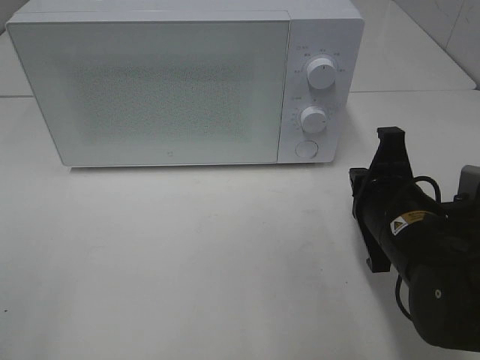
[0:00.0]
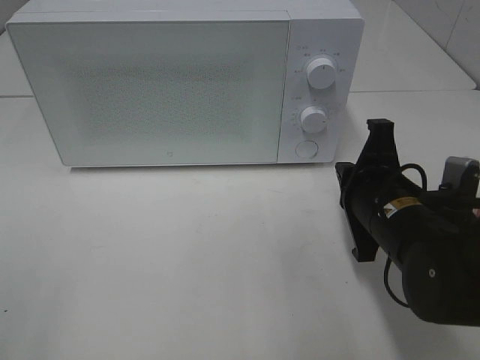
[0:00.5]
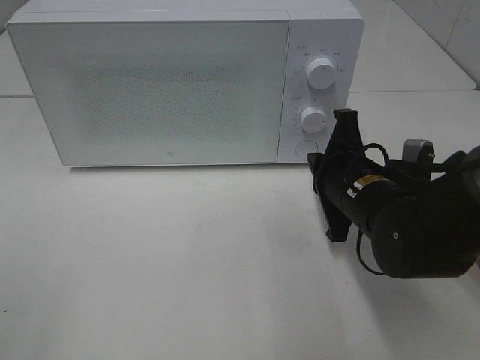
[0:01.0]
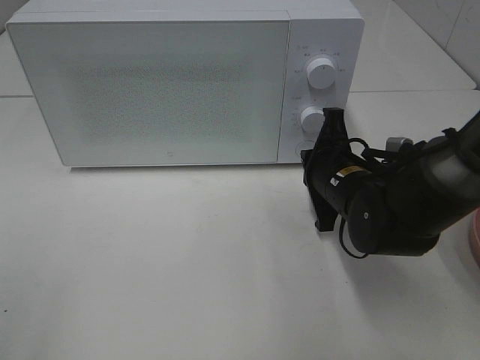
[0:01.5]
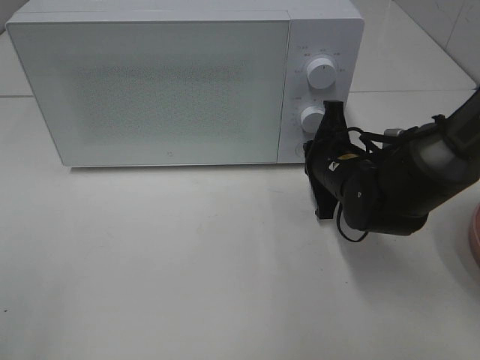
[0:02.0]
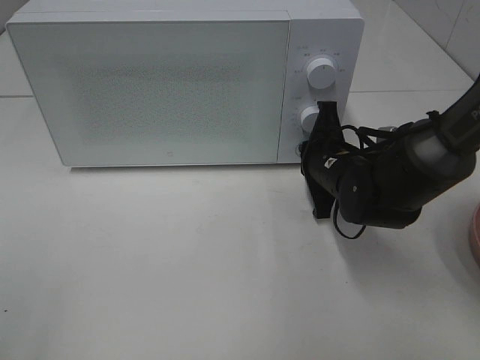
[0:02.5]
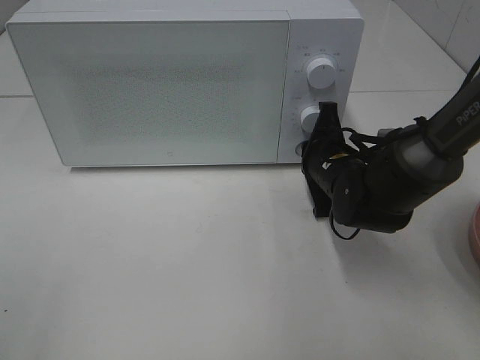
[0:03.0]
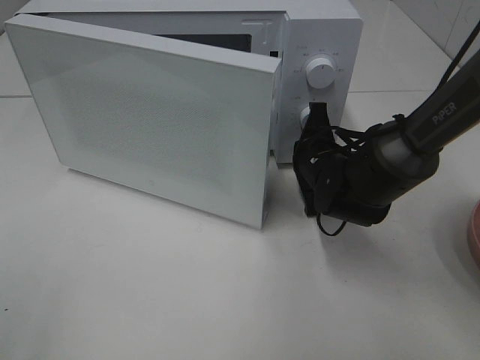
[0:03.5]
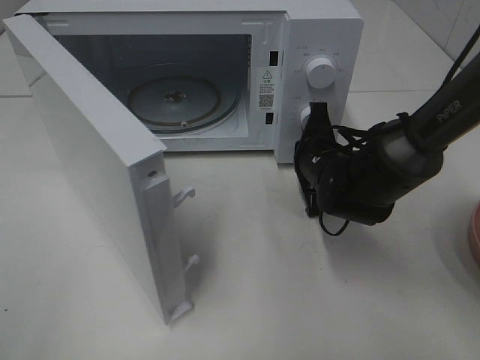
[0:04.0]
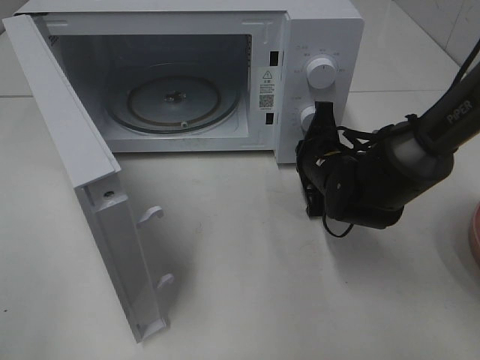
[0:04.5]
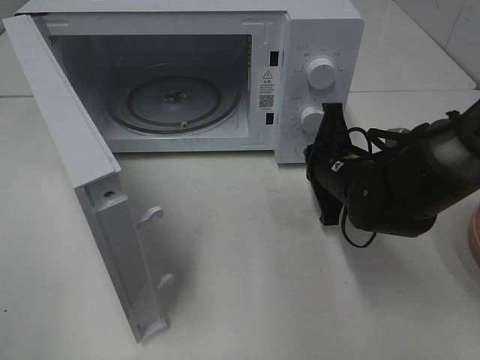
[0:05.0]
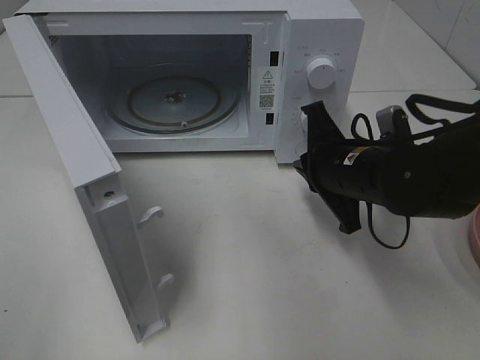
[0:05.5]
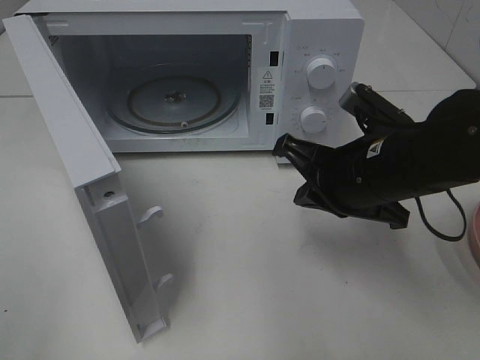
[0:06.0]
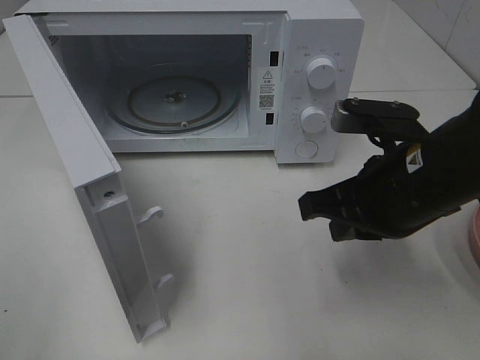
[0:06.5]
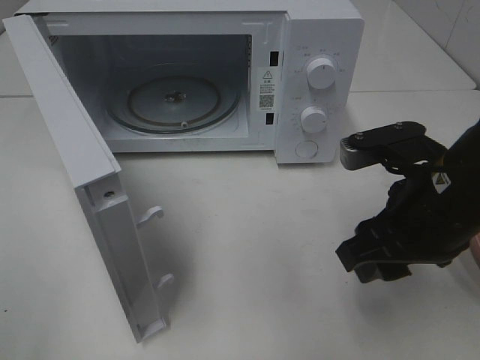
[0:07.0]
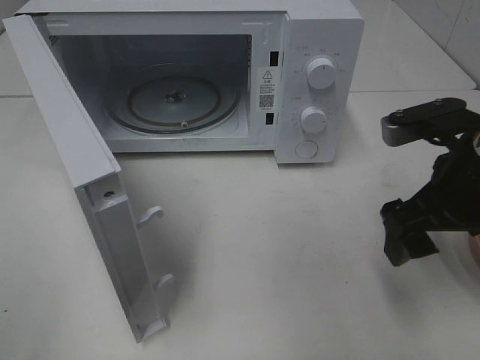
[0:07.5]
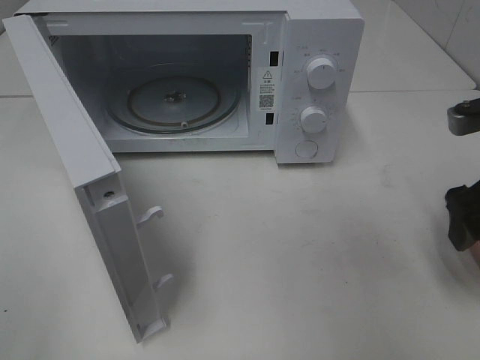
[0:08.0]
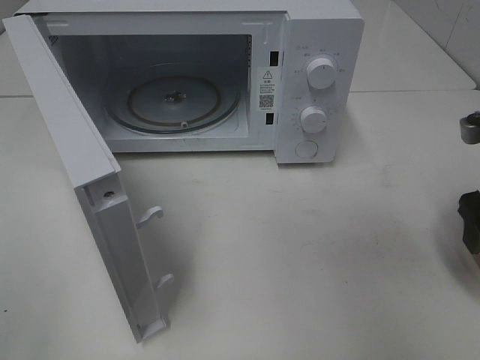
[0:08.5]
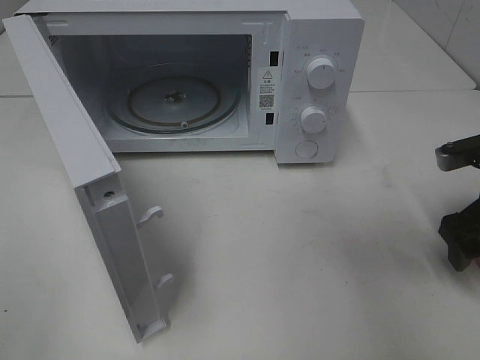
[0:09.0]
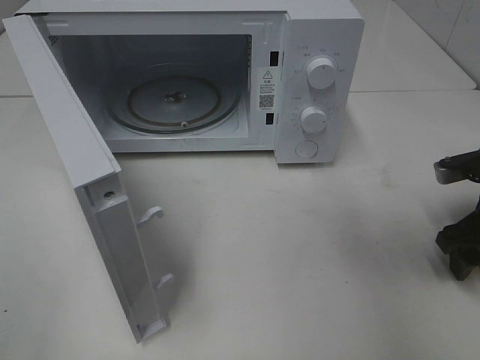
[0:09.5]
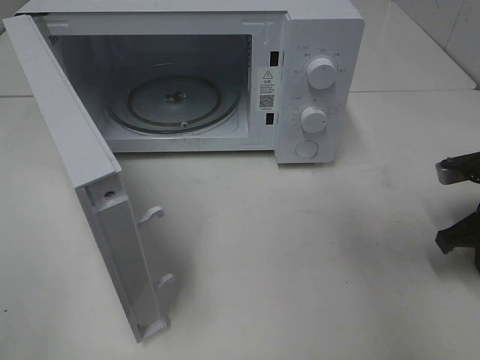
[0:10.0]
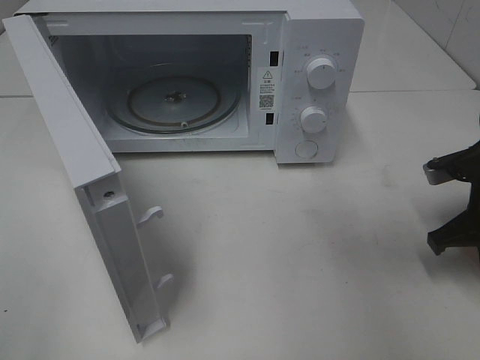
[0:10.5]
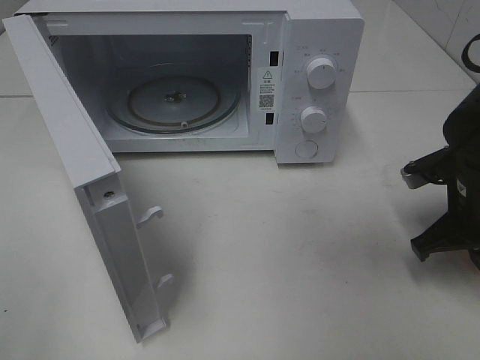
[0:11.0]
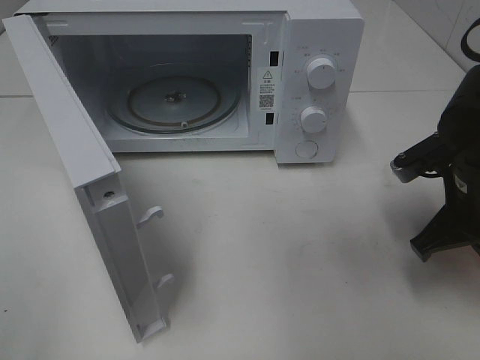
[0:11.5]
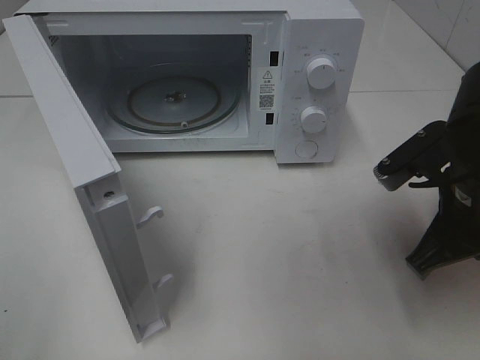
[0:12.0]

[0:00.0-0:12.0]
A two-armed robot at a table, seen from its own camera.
Task of the whole recording: Heat the burger.
Step, 0:00.0 to 0:05.0: Right hand: press the switch.
Step, 0:05.5 to 0:10.5: Right hand: grab the plate with the hamburger.
0:00.0 to 0:02.0: The right gripper heads forward, covering some 10 cm.
0:04.0 to 0:06.0: The right gripper moves backward and upward, some 15 cm.
0:06.0 to 0:08.0: The right gripper travels to the right by approximately 15 cm, and opens its fingers.
0:08.0 to 0:10.0: The right gripper heads downward, covering roughly 10 cm, and closes.
0:10.0 to 0:12.0: The right gripper is displaced to the left, upward and backward by roughly 15 cm.

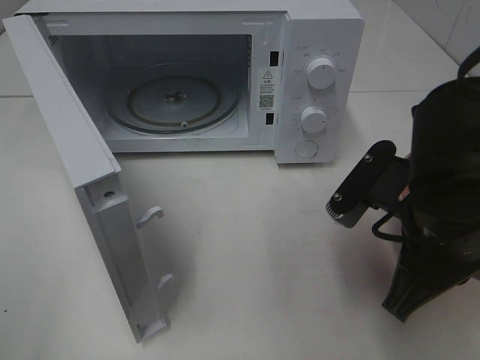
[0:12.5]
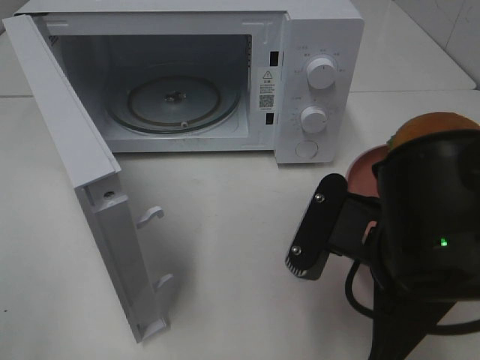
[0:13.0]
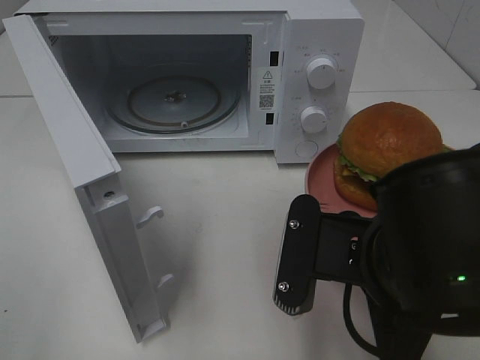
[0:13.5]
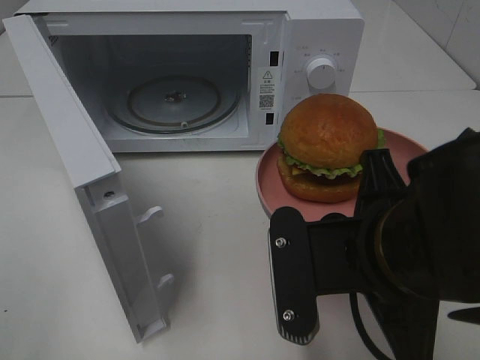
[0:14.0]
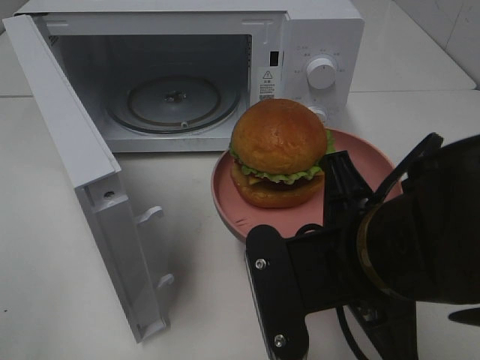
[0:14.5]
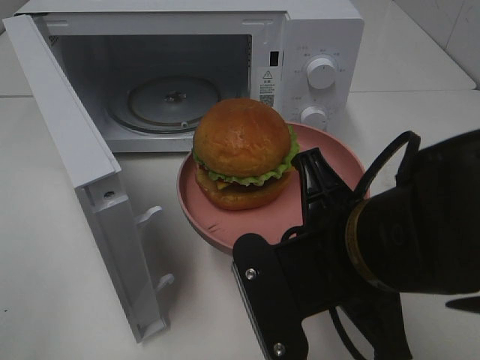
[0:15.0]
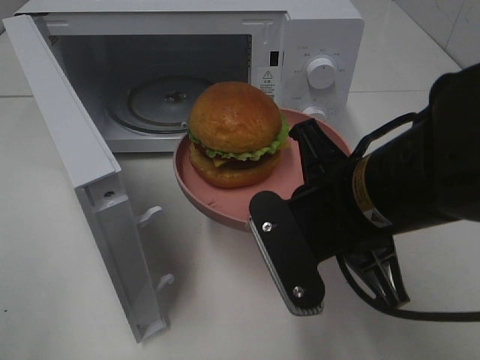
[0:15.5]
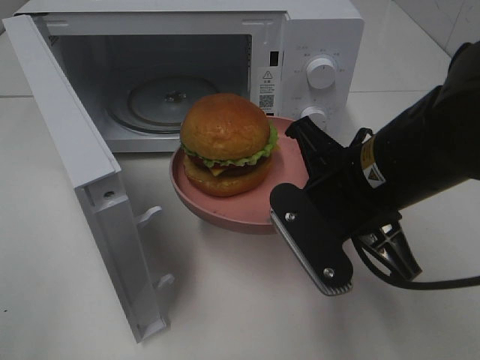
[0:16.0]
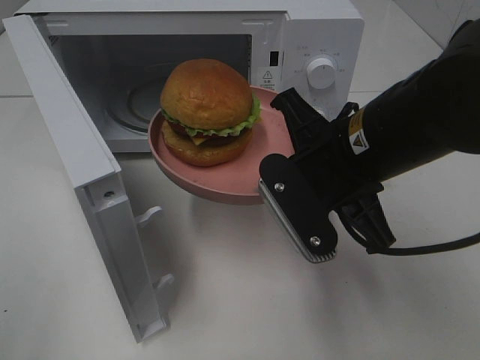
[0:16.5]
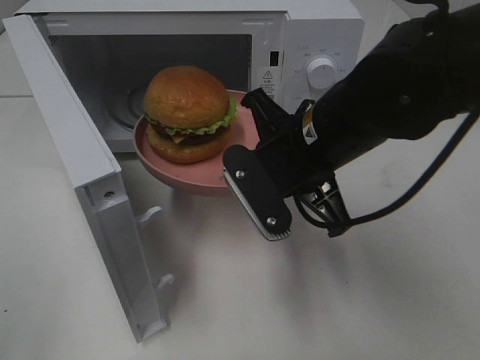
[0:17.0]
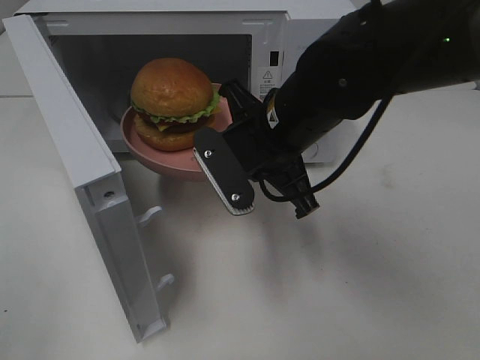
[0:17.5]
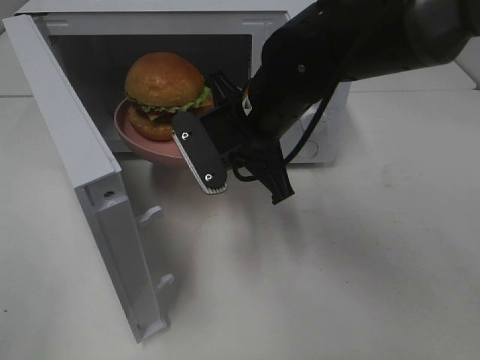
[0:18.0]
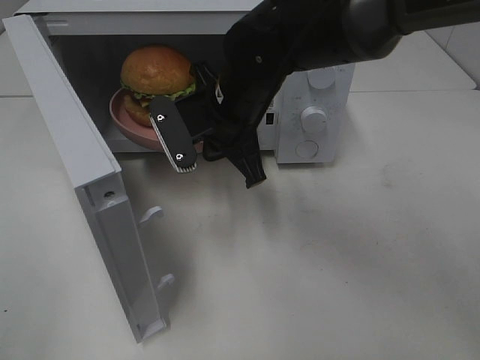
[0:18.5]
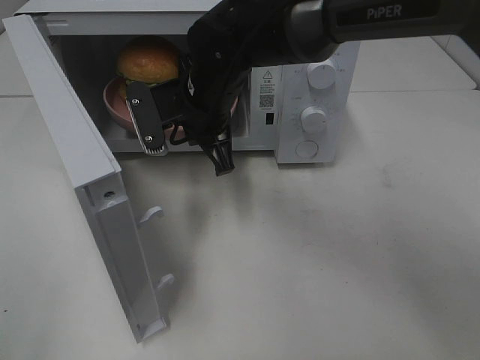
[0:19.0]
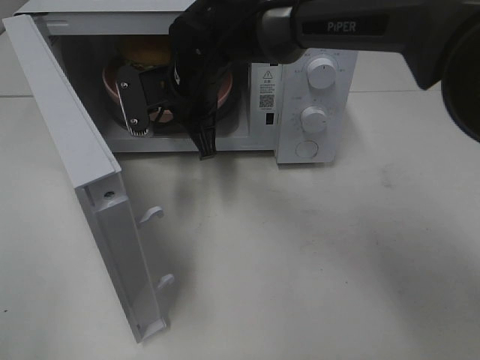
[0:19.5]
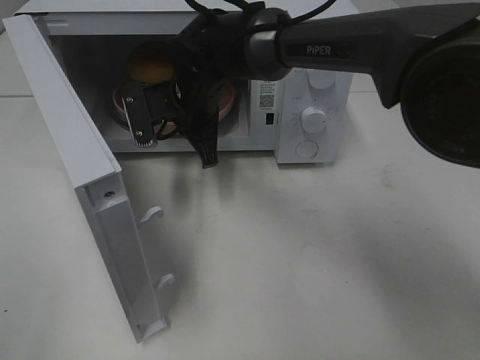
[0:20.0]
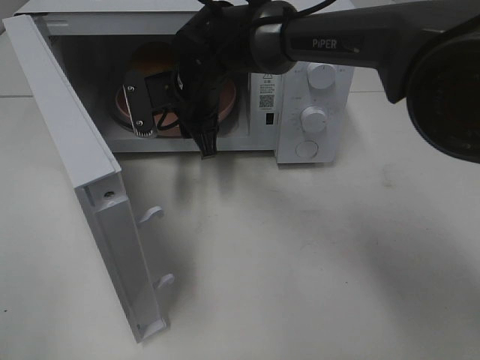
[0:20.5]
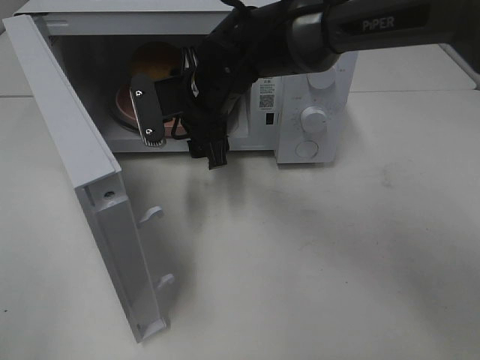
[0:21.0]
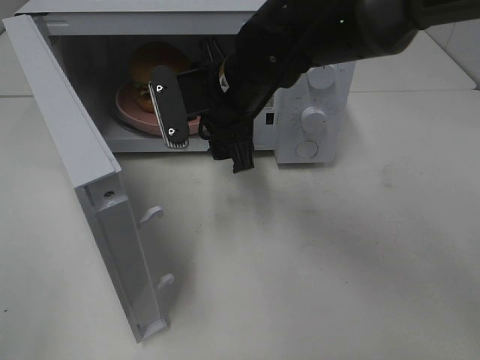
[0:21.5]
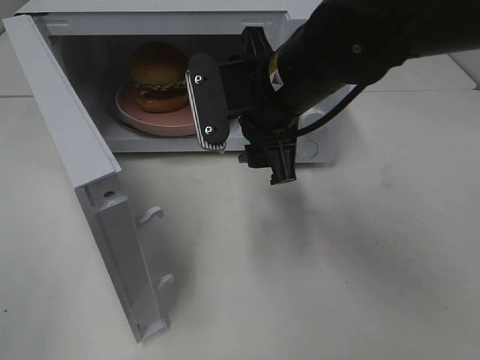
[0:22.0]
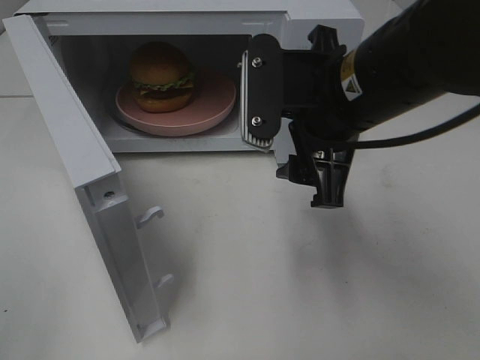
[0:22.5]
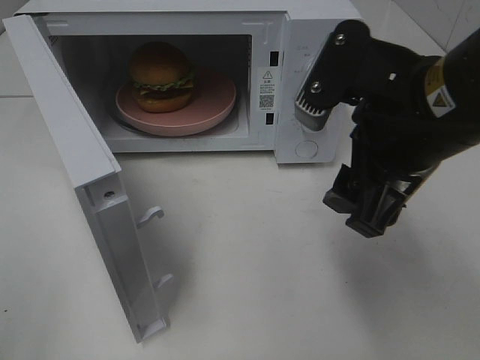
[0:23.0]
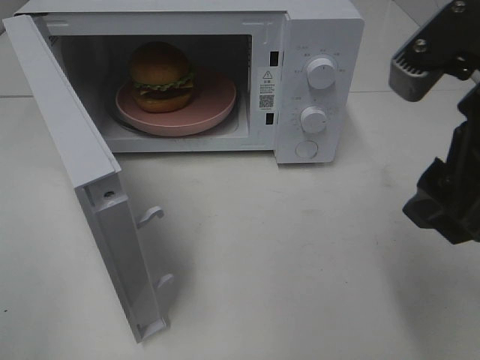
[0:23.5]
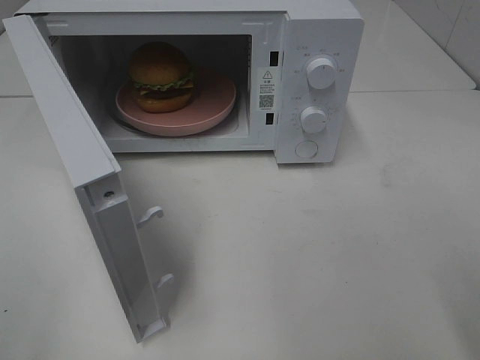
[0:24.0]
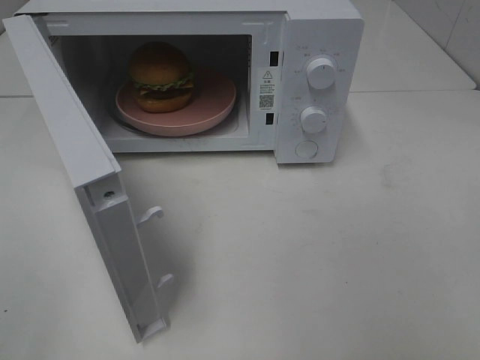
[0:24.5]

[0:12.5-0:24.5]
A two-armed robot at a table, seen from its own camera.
Task of the whole recording: Heat the burger.
Step, 0:12.5 to 0:20.5: Right hand: place the plate in the microwave.
0:12.5 to 0:14.5: The right gripper is displaced to the left by roughly 5 cm.
0:14.5 to 0:16.5: The right gripper moves forward, approximately 10 cm.
0:16.5 to 0:18.5: The right gripper shifts some 15 cm forward and to the left.
0:18.5 to 0:20.5: The right gripper goes about 5 cm forward, and opens.
0:20.5 to 0:22.5: The right gripper shifts some 25 cm backward, to the right and upward.
0:22.5 to 0:24.5: The right gripper shifts some 25 cm to the right and backward.

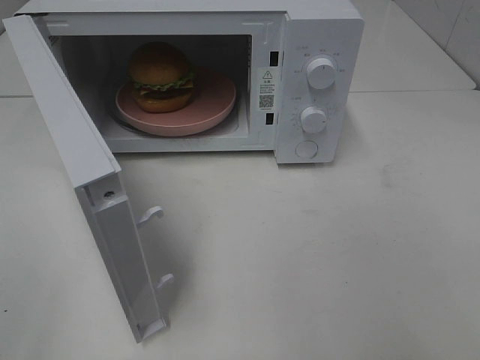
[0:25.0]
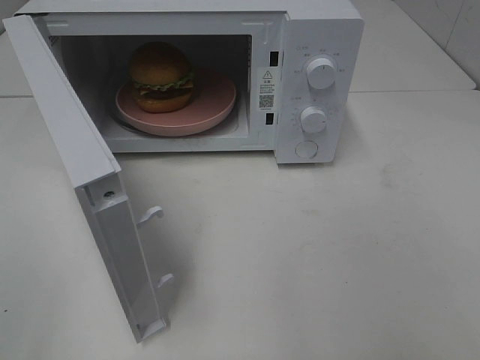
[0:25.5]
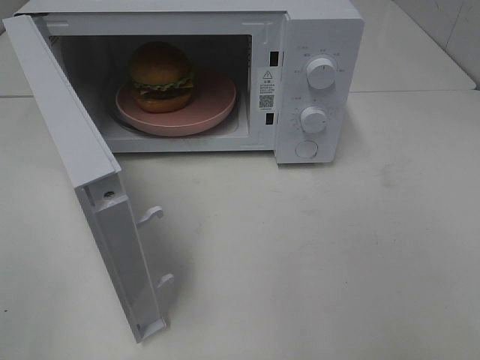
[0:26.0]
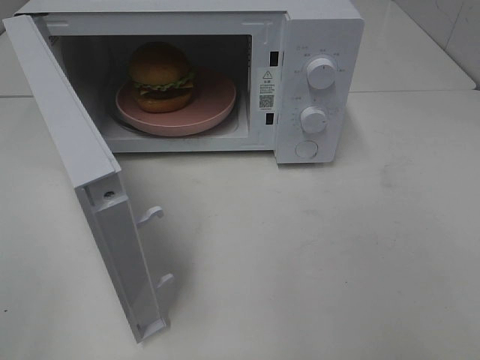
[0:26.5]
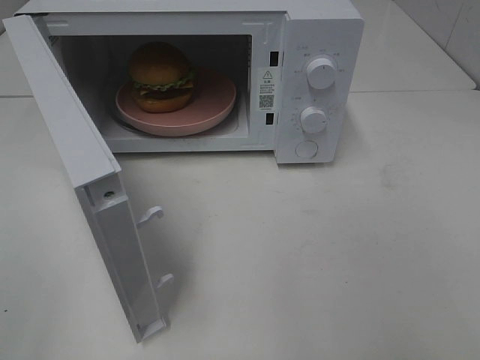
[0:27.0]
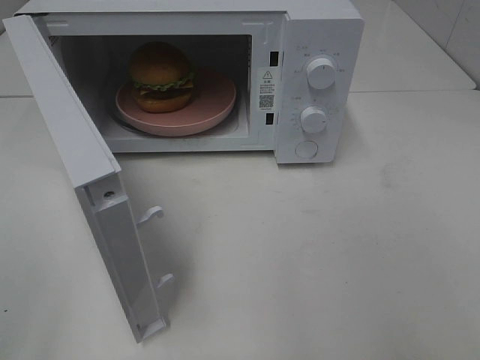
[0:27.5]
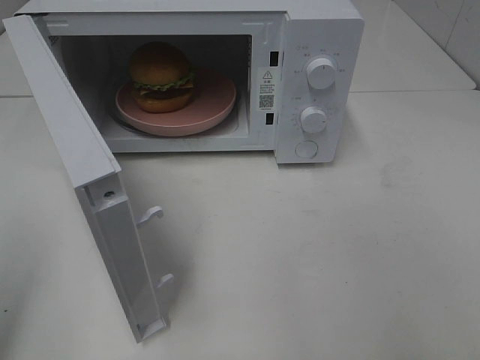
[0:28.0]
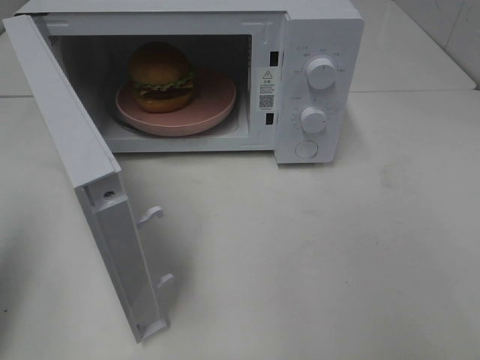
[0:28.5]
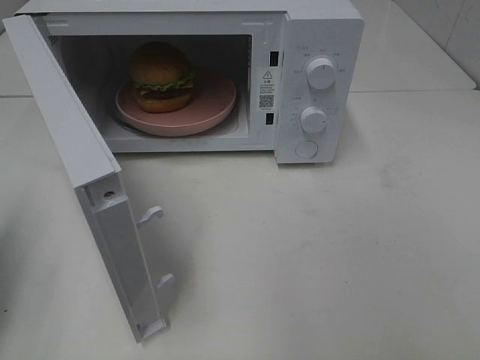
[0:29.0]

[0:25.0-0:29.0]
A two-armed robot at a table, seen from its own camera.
Task of the whole recording: Heat the burger.
0:27.0 to 0:29.0: The left gripper goes approximately 15 cm forward, and closes up.
